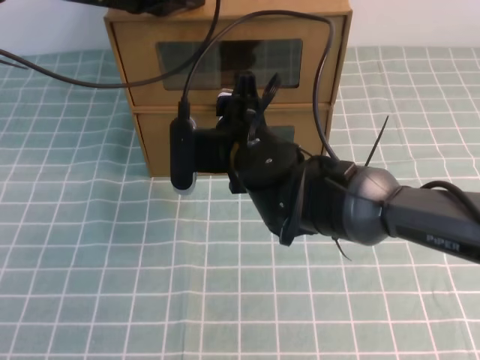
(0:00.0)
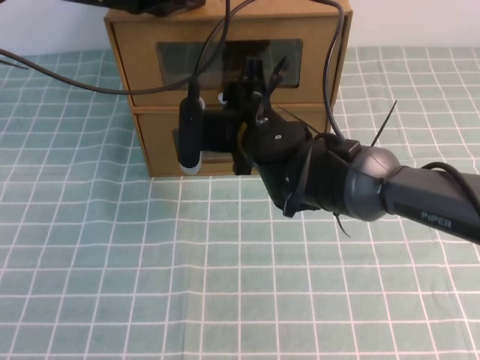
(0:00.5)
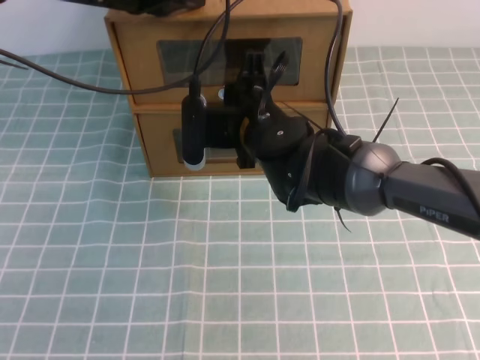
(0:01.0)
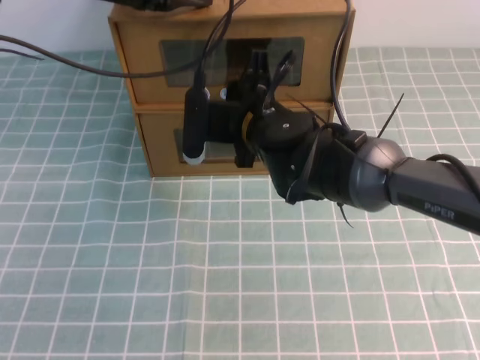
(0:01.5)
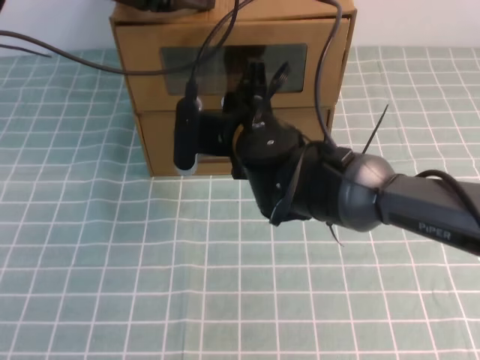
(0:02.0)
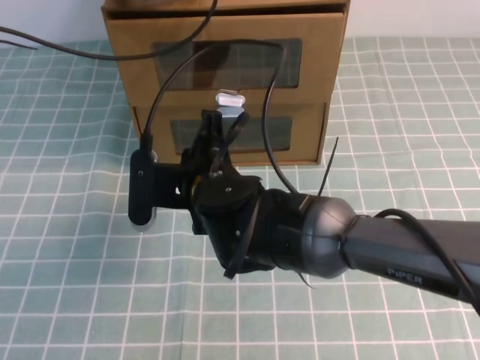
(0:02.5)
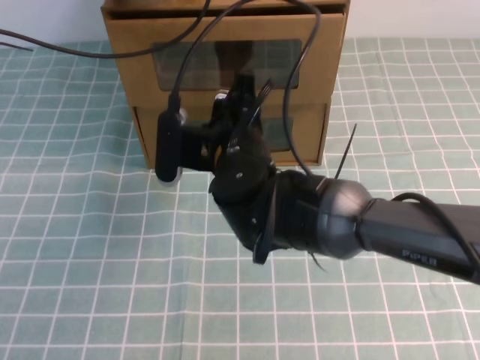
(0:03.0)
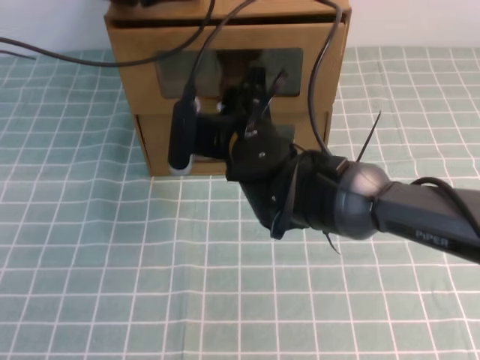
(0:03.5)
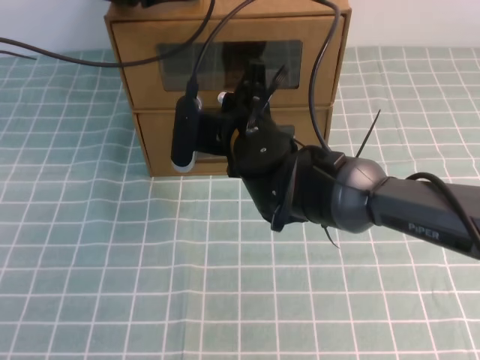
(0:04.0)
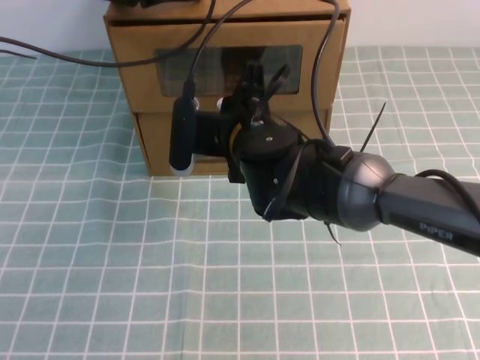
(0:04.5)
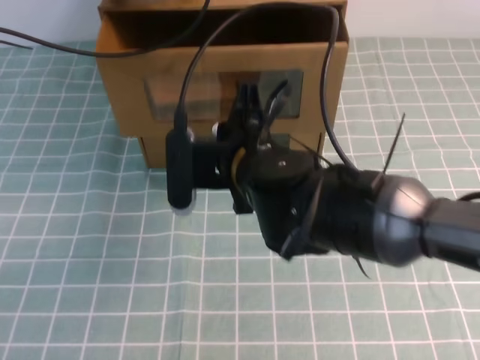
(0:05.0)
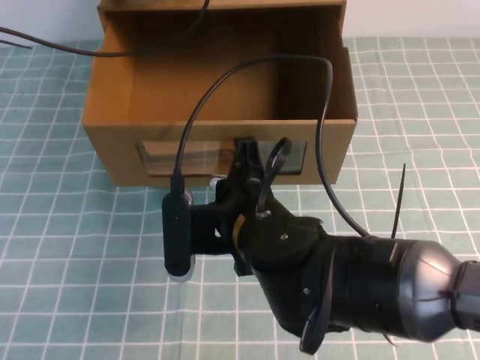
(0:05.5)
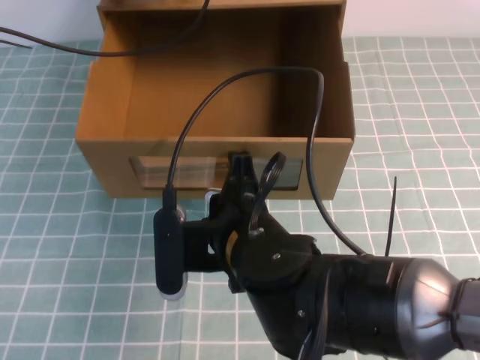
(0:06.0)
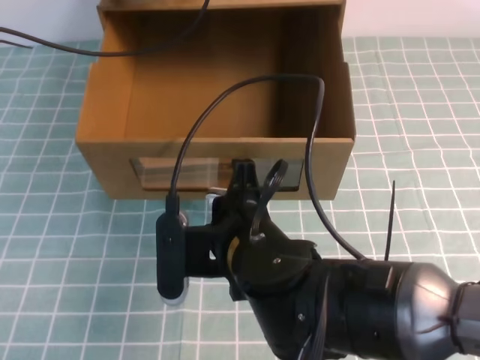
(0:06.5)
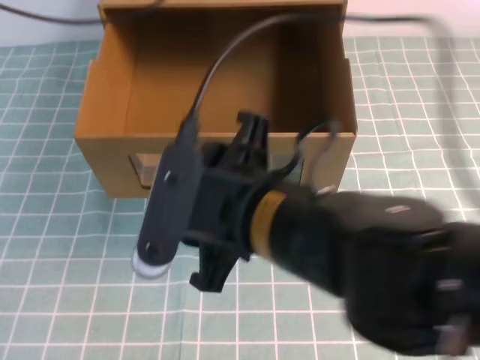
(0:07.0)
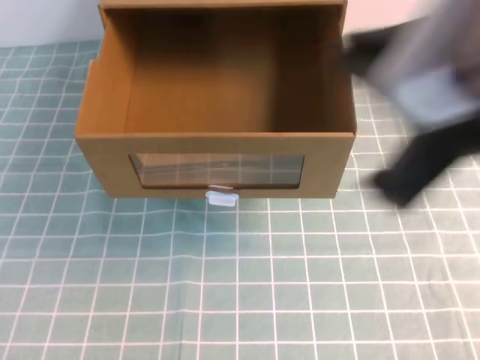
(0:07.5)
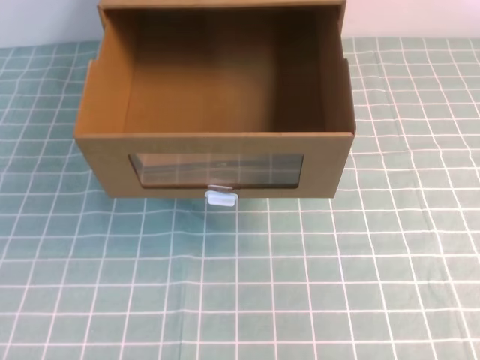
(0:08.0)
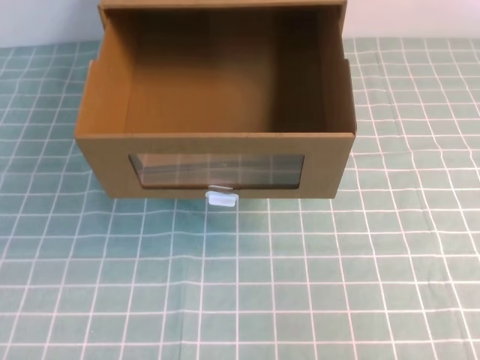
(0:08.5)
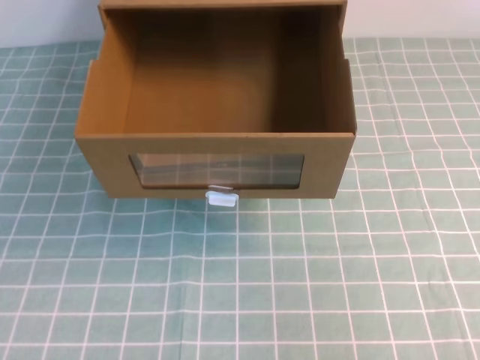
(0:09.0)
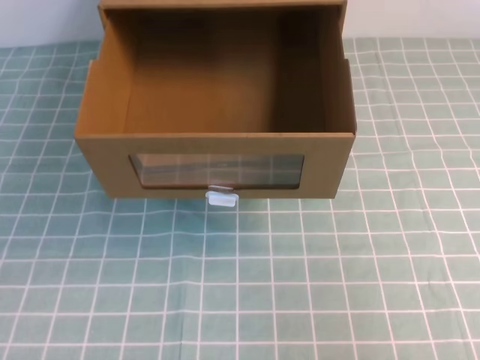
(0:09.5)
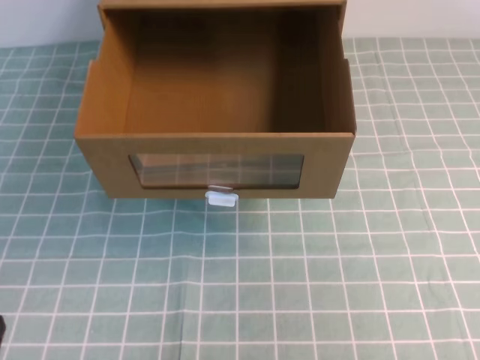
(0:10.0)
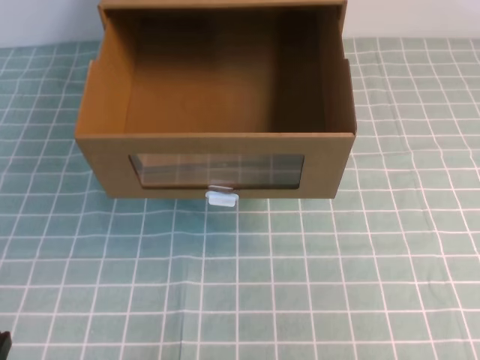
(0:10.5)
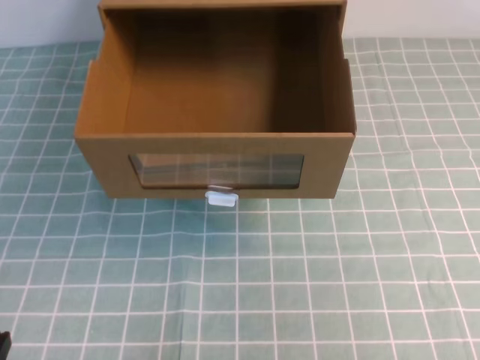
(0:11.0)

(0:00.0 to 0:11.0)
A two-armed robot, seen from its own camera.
Task of the whole recording: open the shoebox on the cyan tablecloth.
0:00.0 - 0:02.0: The right gripper closes its fingers.
0:02.0 - 0:03.5: The right gripper opens up.
0:03.5 - 0:05.5: The right gripper travels backward by approximately 10 cm, and closes its fingers.
0:05.5 - 0:07.5: The left gripper shifts some 30 cm backward and upward. Meanwhile the right gripper moves upward, to the right and backward, about 25 cm, and opens, then closes again.
0:07.5 - 0:09.0: The left gripper heads backward and downward, covering about 30 cm. The right gripper goes about 20 cm downward and to the right.
0:09.0 - 0:11.0: The left gripper travels downward by about 20 cm.

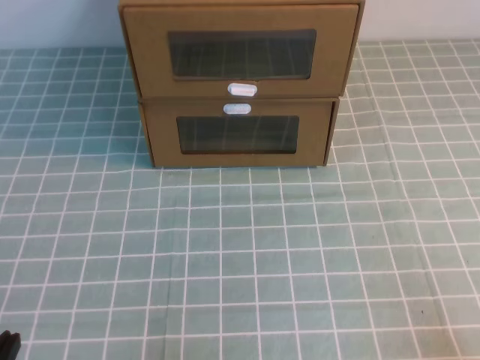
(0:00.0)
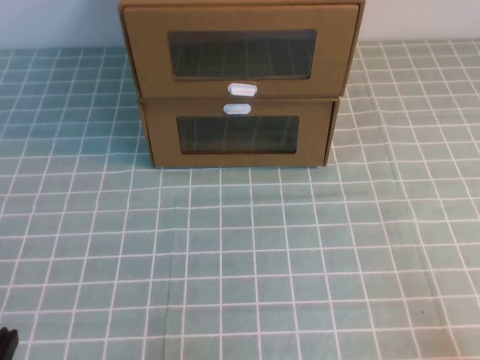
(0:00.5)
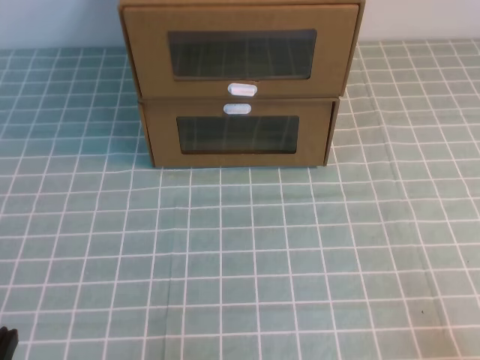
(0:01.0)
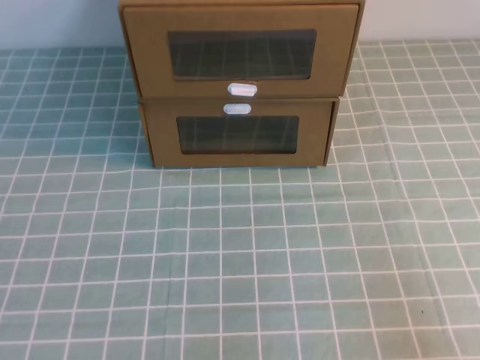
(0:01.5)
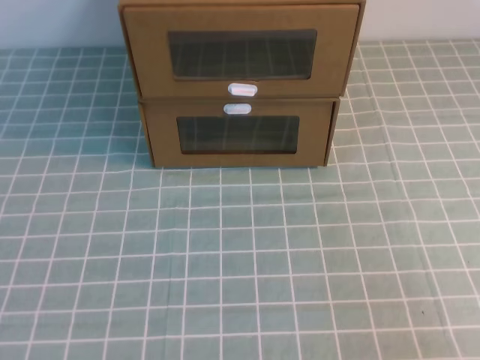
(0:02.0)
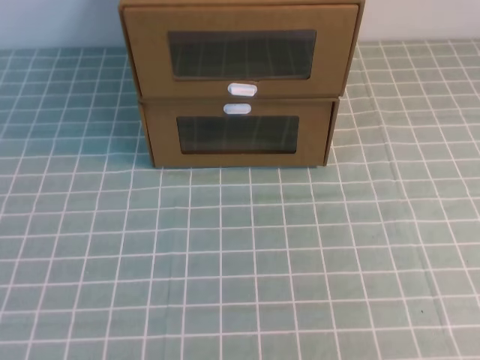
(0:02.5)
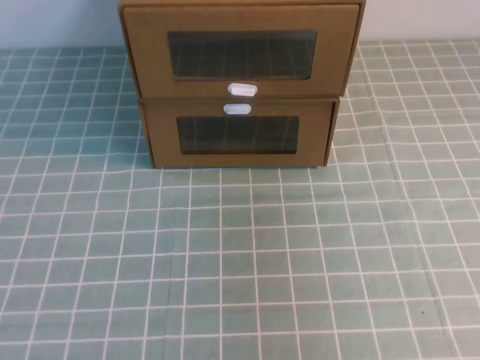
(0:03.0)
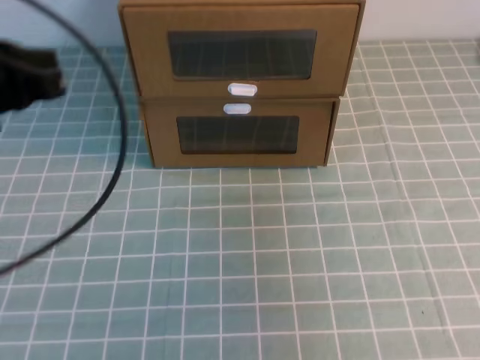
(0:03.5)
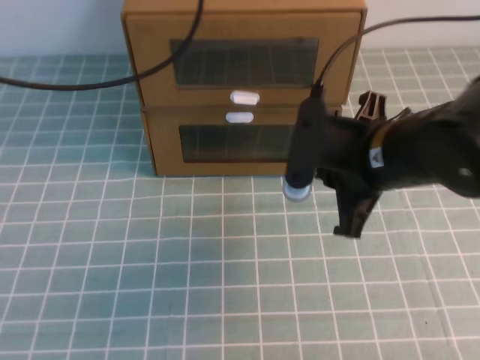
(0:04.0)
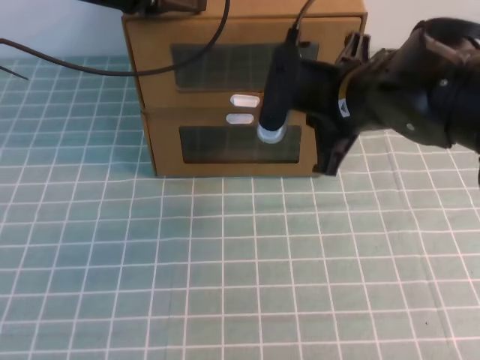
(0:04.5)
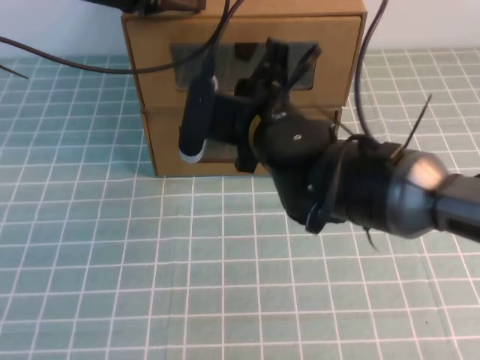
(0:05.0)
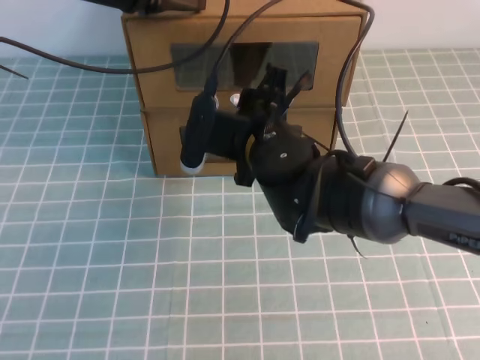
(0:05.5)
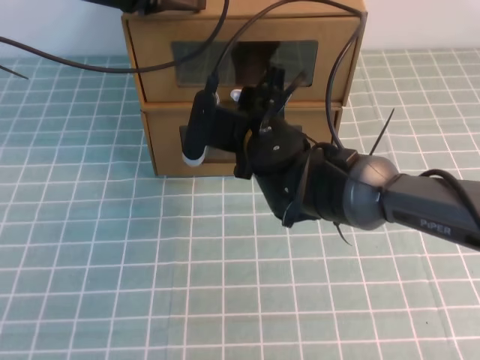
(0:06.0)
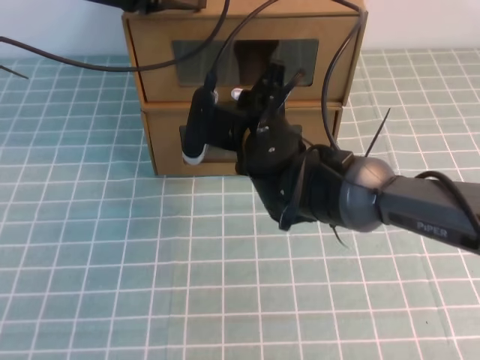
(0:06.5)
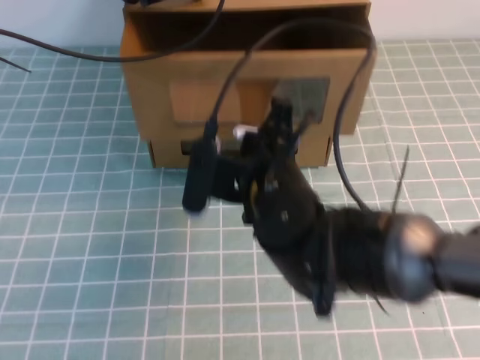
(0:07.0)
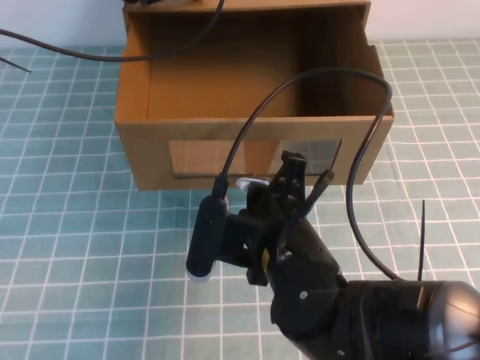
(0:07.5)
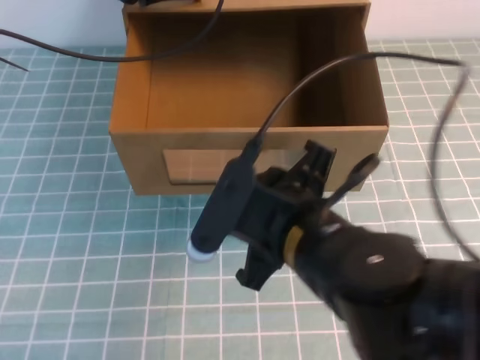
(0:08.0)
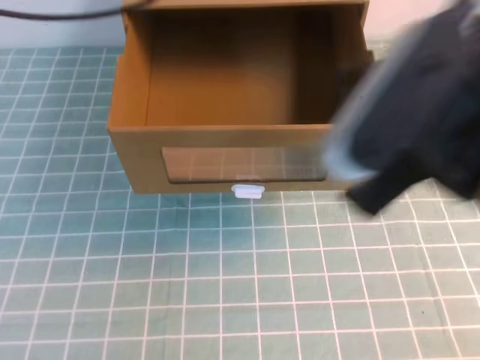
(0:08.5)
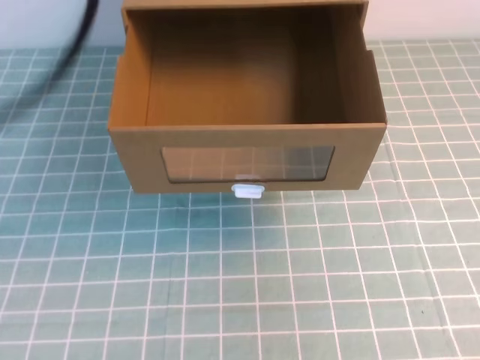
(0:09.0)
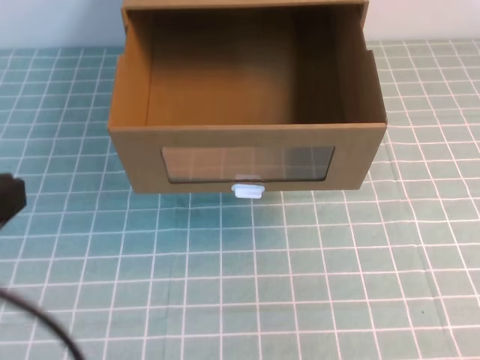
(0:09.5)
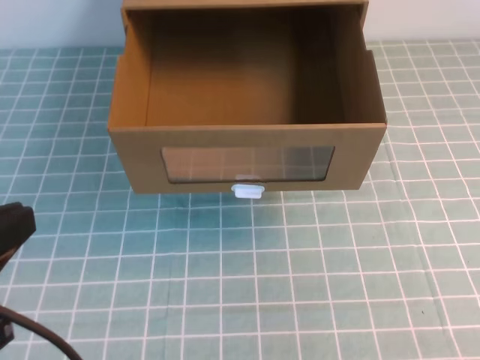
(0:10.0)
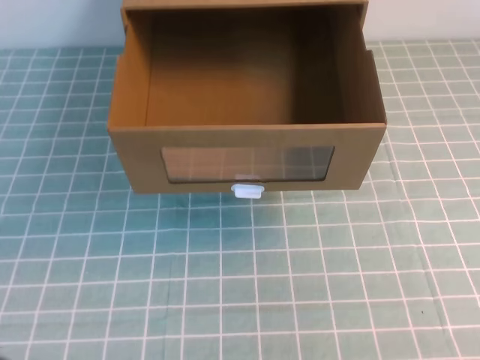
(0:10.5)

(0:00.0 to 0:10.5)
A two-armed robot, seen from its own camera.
Task of the whole recording: open the shoebox on the cyan tablecloth.
0:02.0 - 0:04.0: The right gripper shifts some 30 cm forward and to the left. The left gripper travels forward and upward by approximately 35 cm.
0:04.0 - 0:06.5: The left gripper shifts roughly 5 cm forward. The right gripper is displaced to the left, forward and downward by about 15 cm, and opens and closes again.
0:06.5 - 0:08.5: The left gripper travels upward and backward by roughly 15 cm. Meanwhile the right gripper moves backward, upward and to the right, roughly 25 cm, and opens.
0:08.5 - 0:10.5: The right gripper goes about 20 cm to the right and backward, and closes its fingers, while the left gripper travels backward and downward by roughly 30 cm.

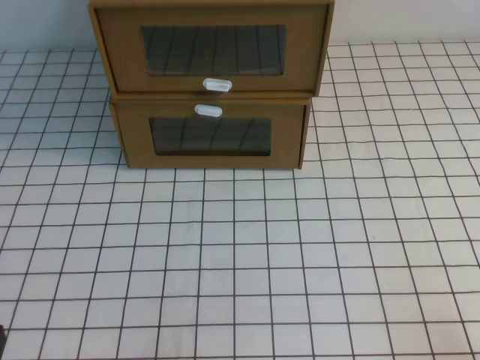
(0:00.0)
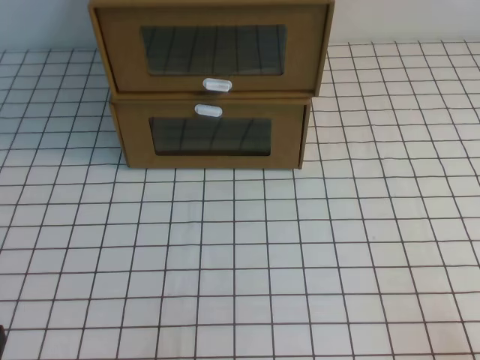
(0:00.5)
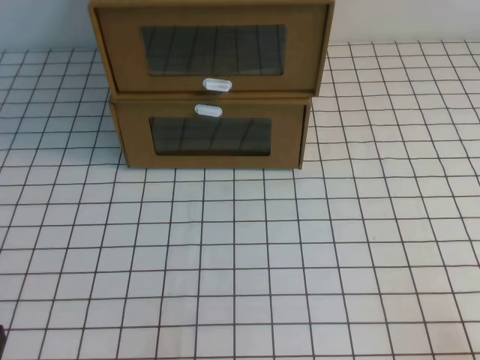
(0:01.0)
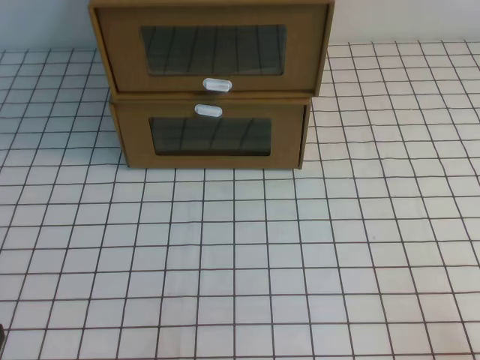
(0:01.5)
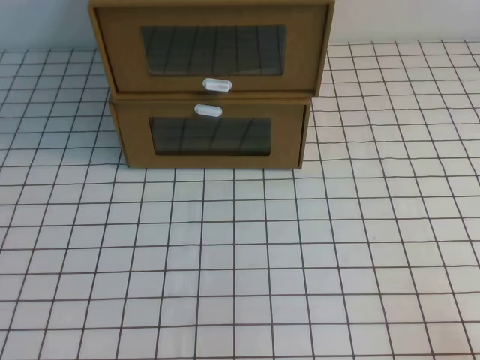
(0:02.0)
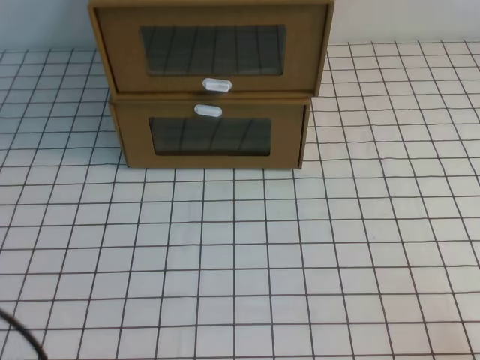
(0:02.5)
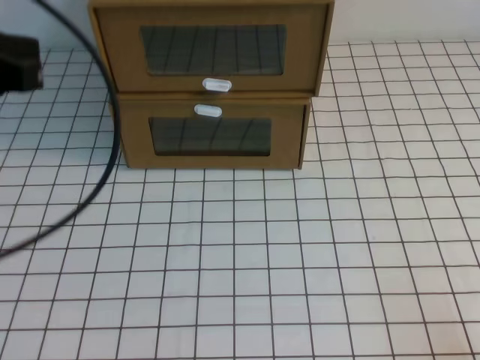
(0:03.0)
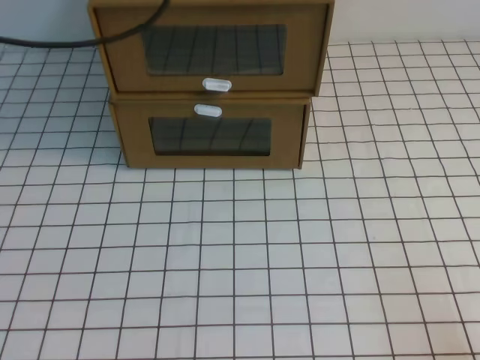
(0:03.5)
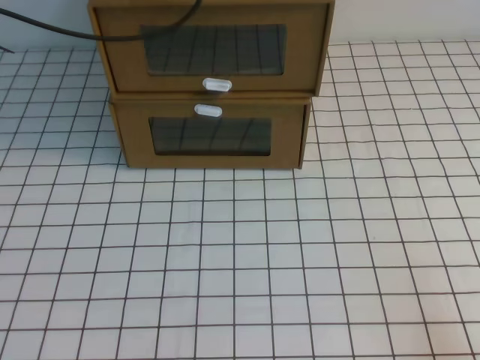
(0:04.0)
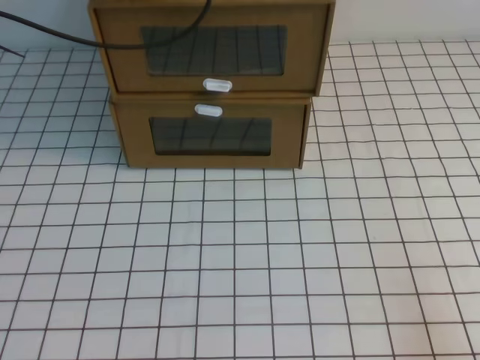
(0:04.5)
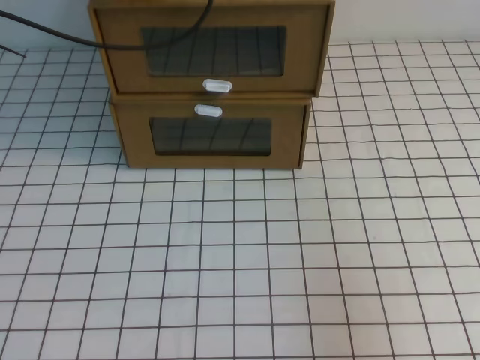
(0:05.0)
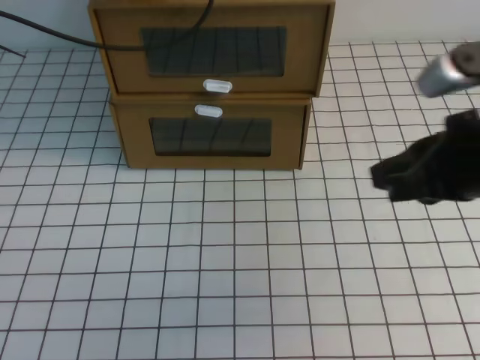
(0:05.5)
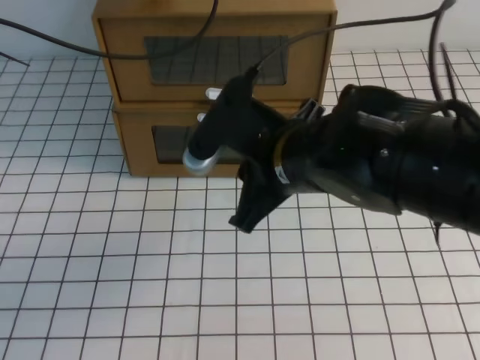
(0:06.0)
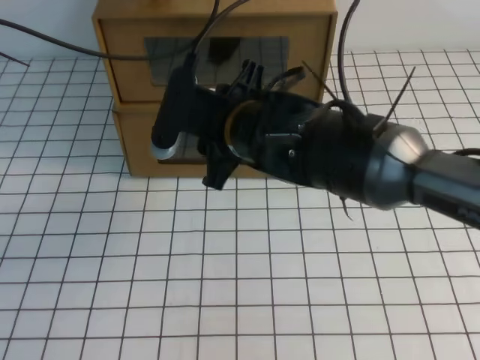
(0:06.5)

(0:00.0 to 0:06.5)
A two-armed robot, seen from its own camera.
Task of the whole recording: open the shoebox on the white tablecloth.
0:02.0 - 0:04.5: The left gripper goes about 50 cm forward and upward.
0:04.5 - 0:06.5: The right gripper moves to the left and forward, about 40 cm, and opens.
